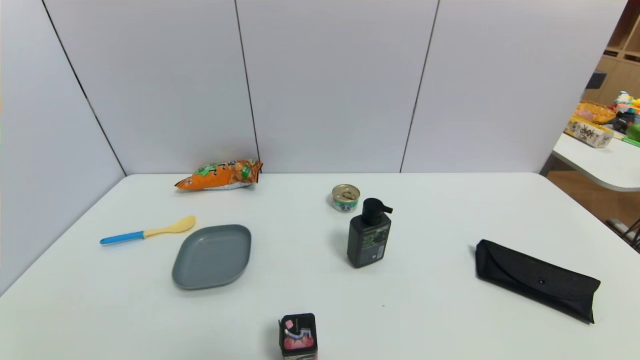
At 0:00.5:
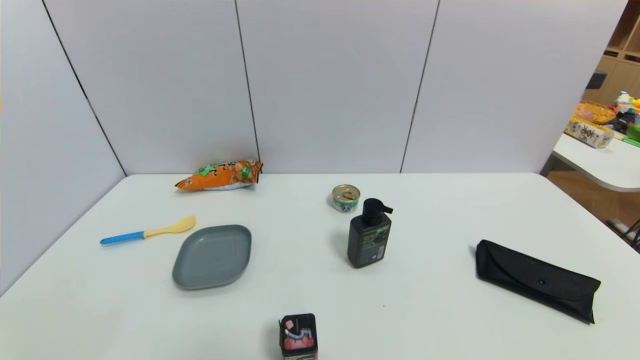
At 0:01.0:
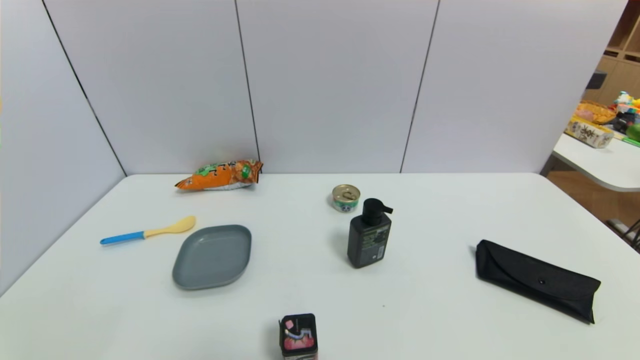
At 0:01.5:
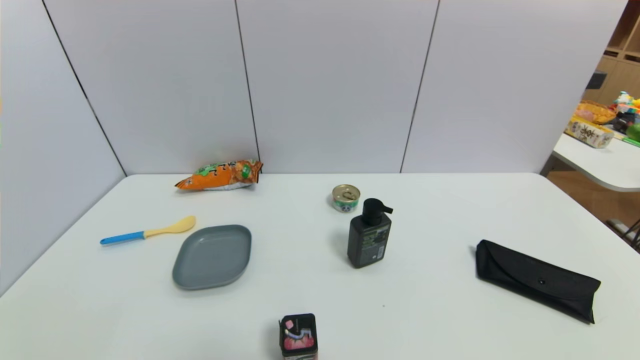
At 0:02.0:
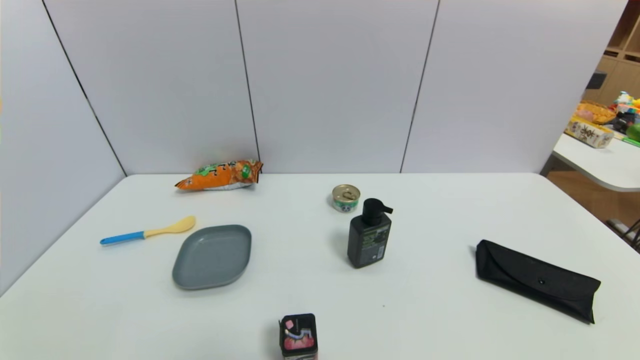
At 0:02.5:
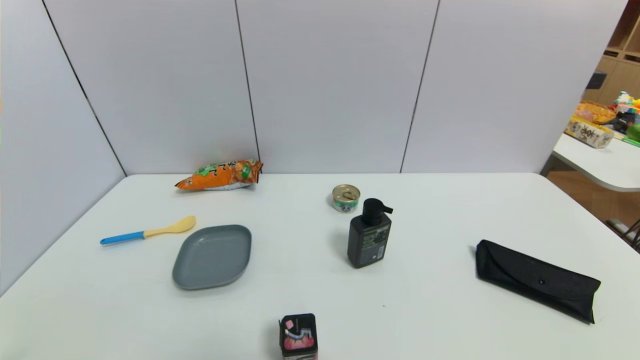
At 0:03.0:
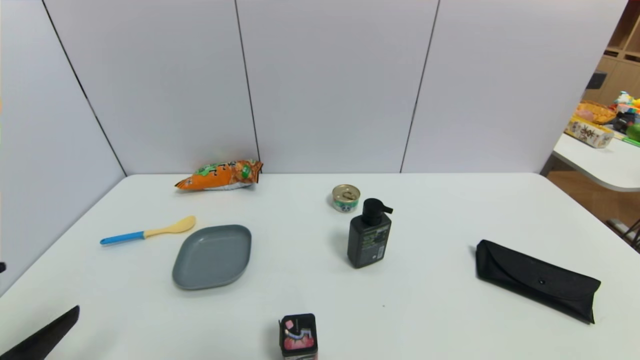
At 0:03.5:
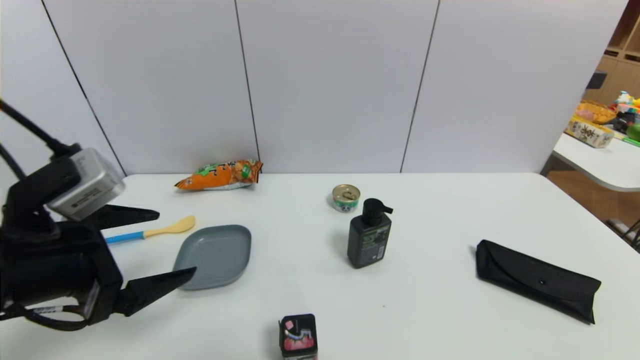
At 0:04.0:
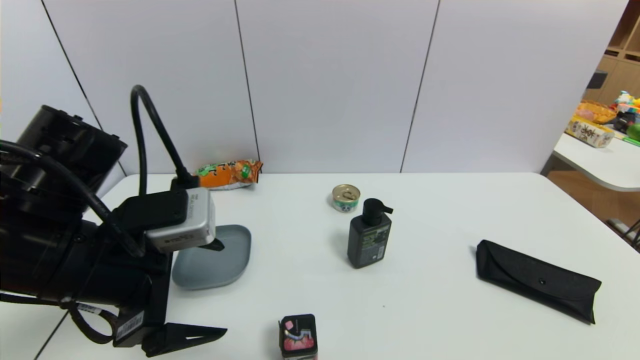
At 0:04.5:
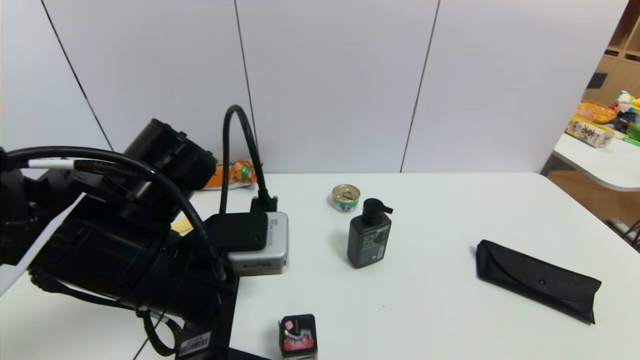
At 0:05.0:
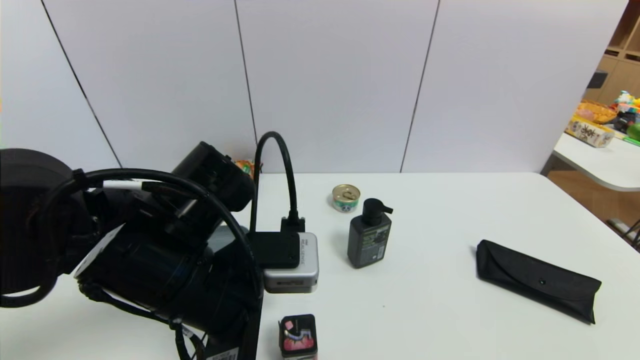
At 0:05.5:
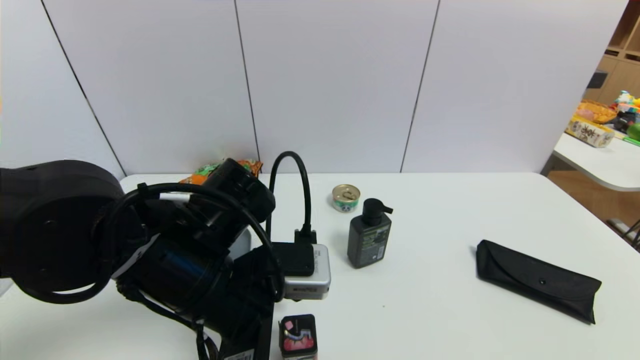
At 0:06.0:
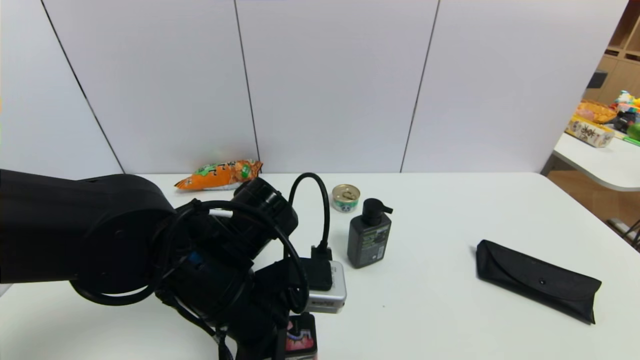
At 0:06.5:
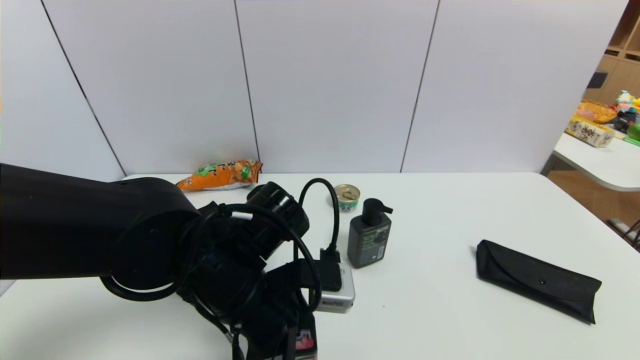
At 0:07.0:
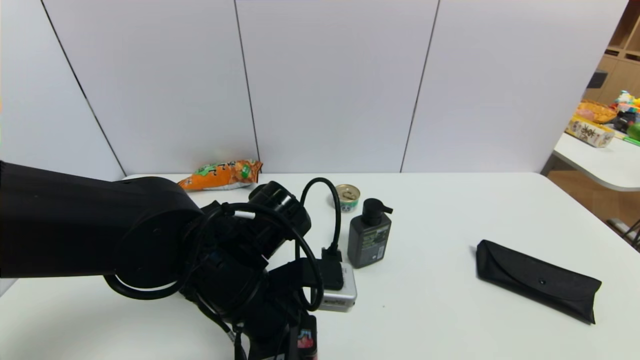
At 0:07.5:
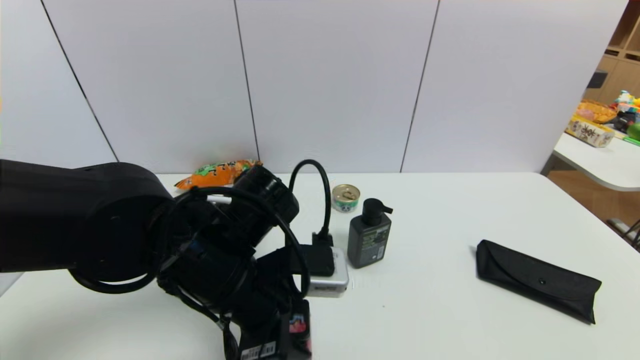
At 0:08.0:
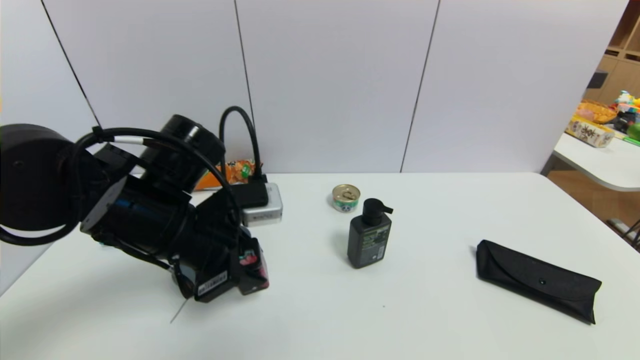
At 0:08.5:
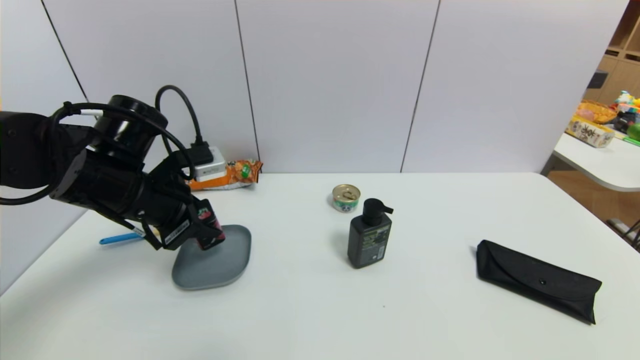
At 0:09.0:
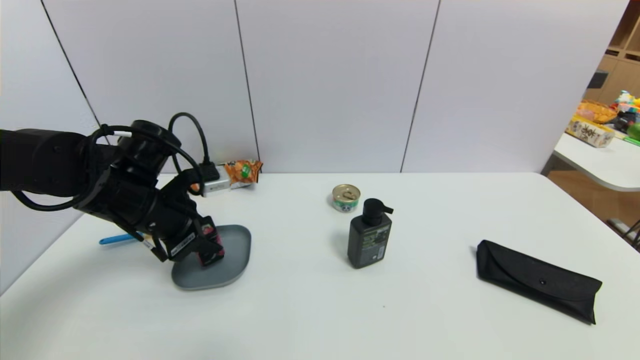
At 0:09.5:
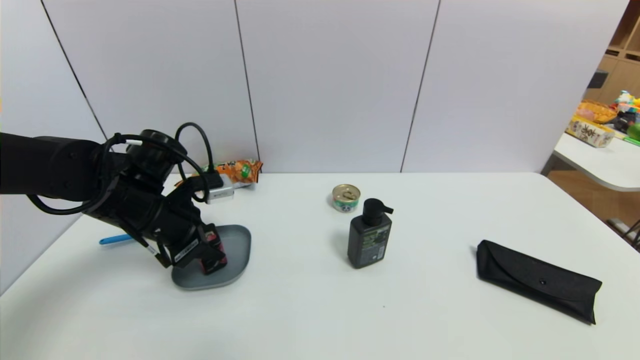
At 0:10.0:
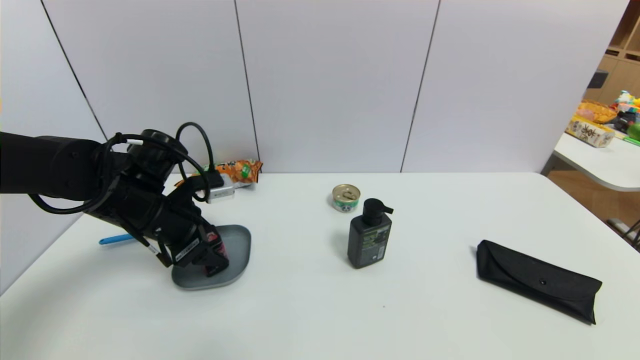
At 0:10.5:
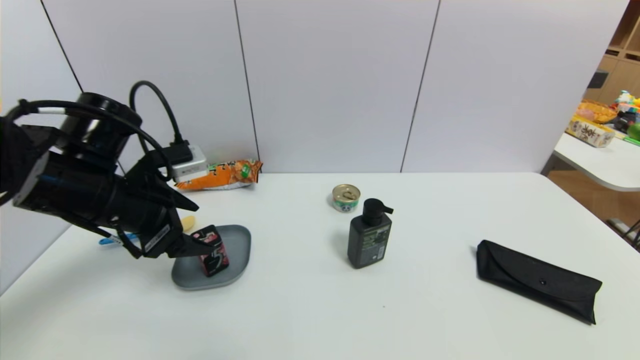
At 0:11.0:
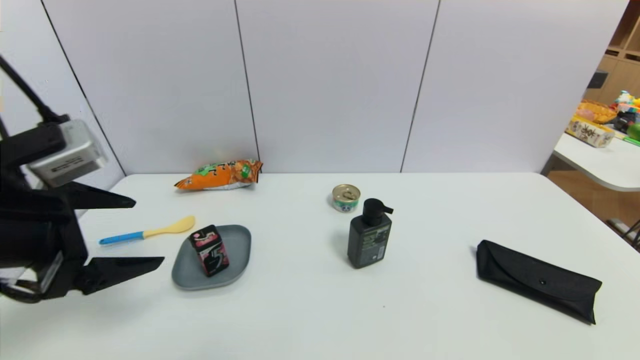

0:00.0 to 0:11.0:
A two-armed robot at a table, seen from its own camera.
Task of the whole recording: use a gripper to pick the target object and place on the dish.
Step, 0:00.0 to 0:06.5: Grasp the square chewing gum with the left gripper.
Step, 0:07.0 to 0:10.5: Place the square chewing gum on the dish with the left gripper.
0:02.0 to 0:03.5: The left gripper moves forward and upward, about 25 cm.
0:03.5 to 0:05.5: The left gripper goes some 15 cm to the right.
0:05.5 to 0:07.5: The left gripper closes up.
0:07.5 to 0:09.0: The left gripper shifts roughly 15 cm to the left and forward.
0:09.0 to 0:11.0: The left gripper is displaced backward and upward by about 15 cm, and opens up.

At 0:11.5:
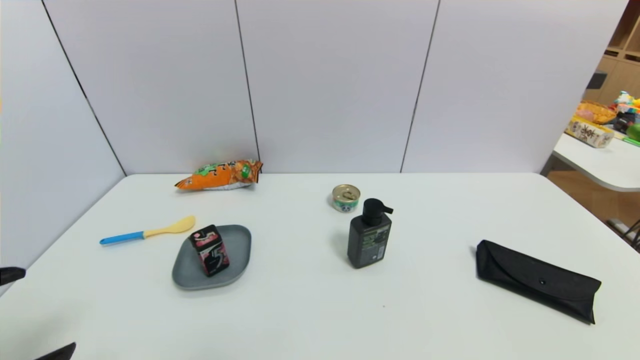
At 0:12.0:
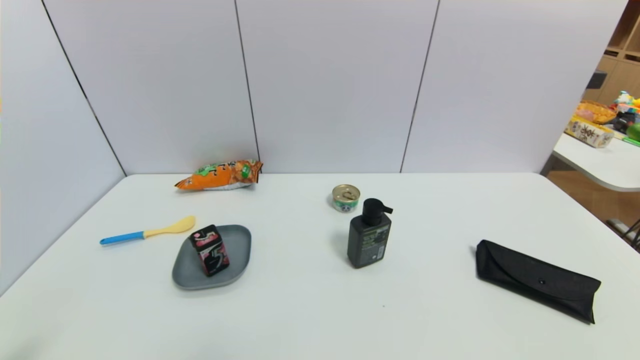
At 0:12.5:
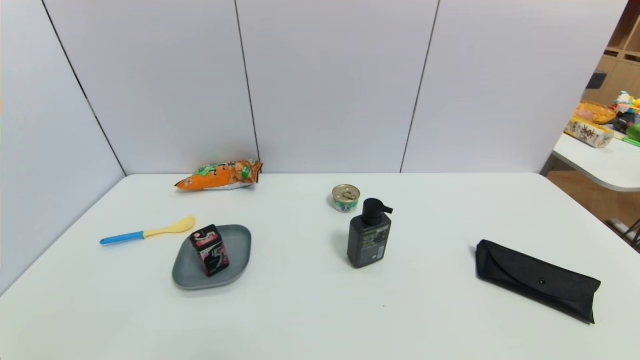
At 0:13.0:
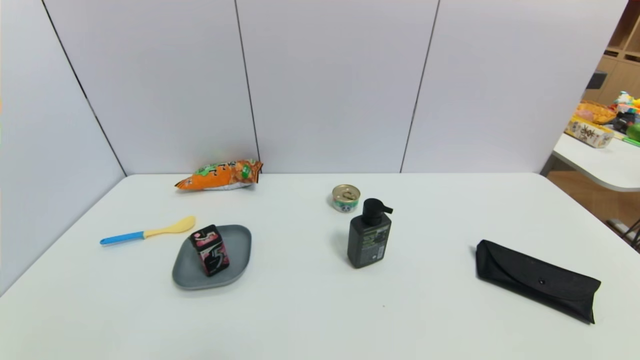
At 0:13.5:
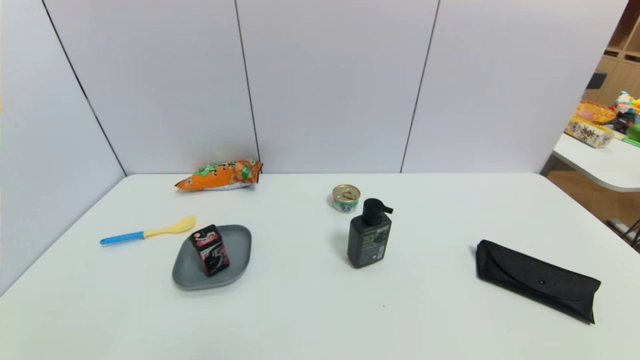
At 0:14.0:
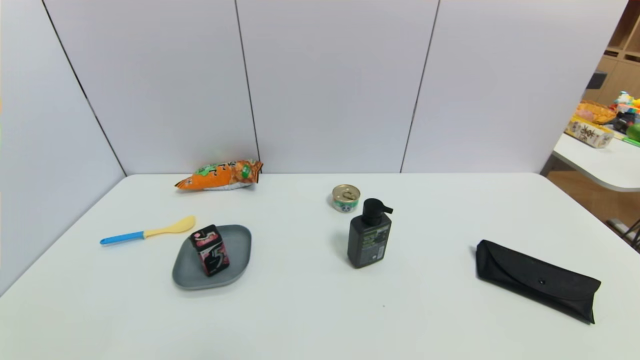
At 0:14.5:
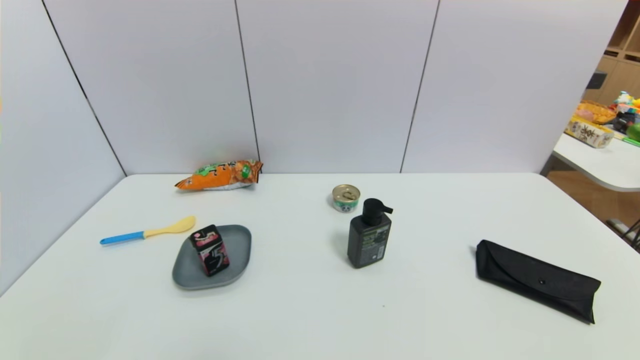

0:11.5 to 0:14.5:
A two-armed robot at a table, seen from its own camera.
Task of the whole recording: use a gripper to pick the target object and place on the dish.
0:11.5 to 0:13.0: The left gripper is displaced downward by about 15 cm.
